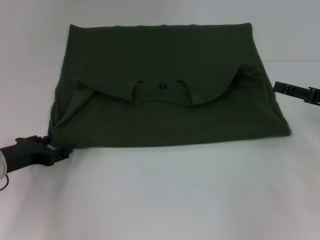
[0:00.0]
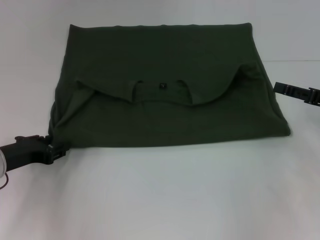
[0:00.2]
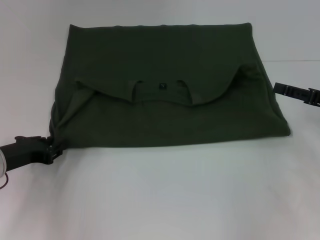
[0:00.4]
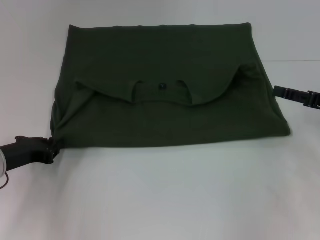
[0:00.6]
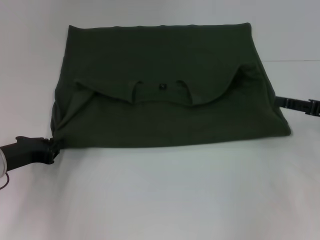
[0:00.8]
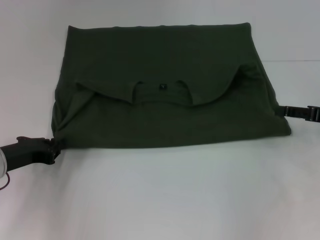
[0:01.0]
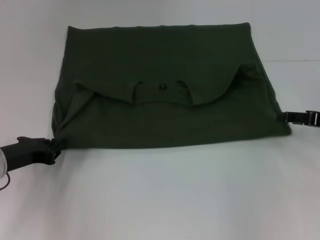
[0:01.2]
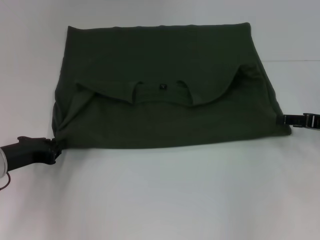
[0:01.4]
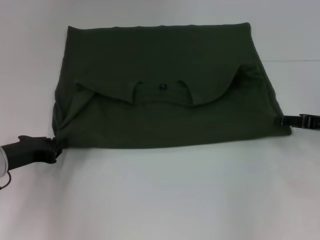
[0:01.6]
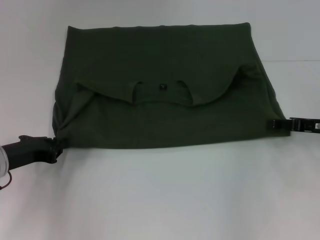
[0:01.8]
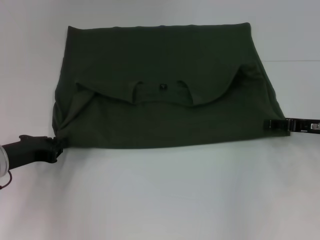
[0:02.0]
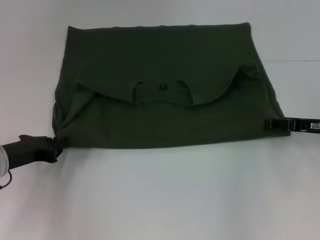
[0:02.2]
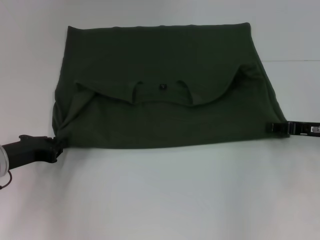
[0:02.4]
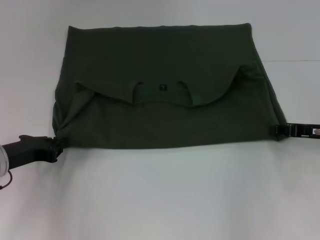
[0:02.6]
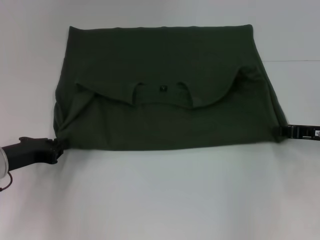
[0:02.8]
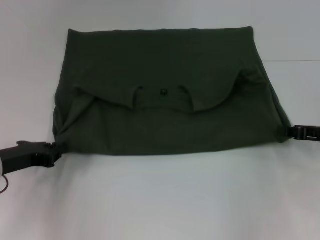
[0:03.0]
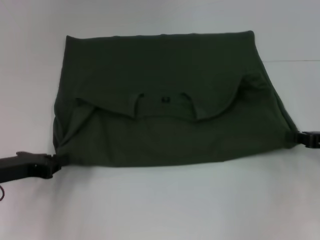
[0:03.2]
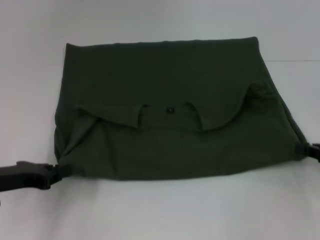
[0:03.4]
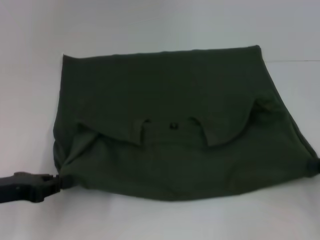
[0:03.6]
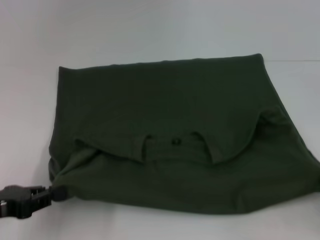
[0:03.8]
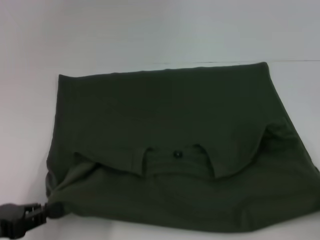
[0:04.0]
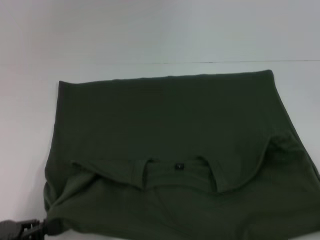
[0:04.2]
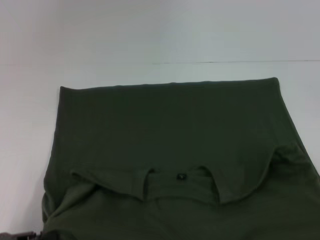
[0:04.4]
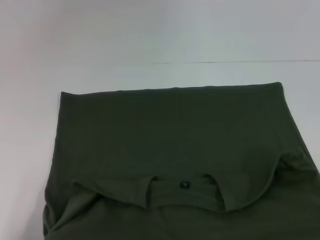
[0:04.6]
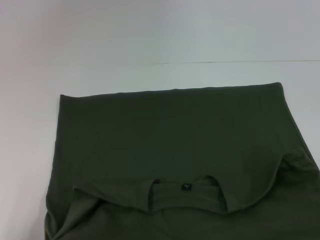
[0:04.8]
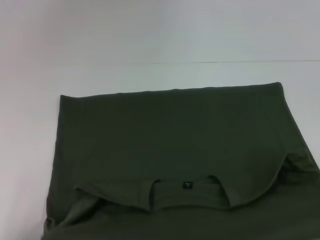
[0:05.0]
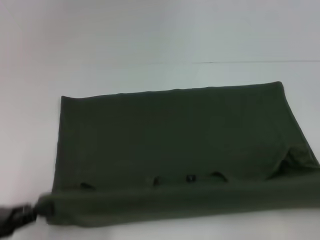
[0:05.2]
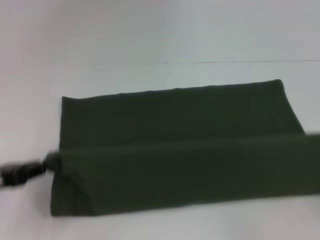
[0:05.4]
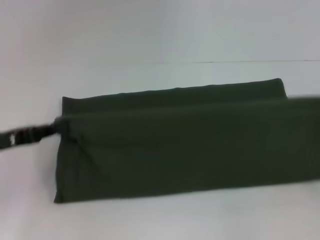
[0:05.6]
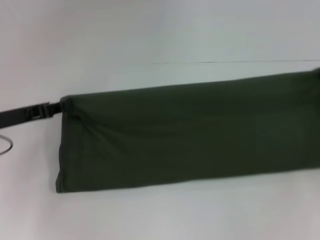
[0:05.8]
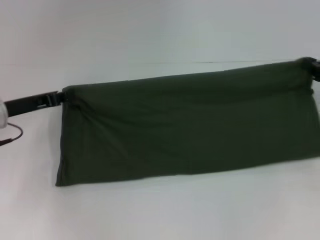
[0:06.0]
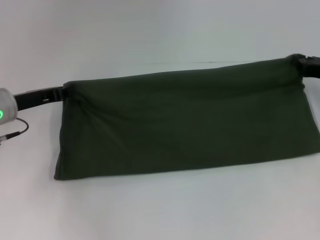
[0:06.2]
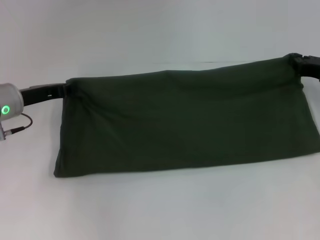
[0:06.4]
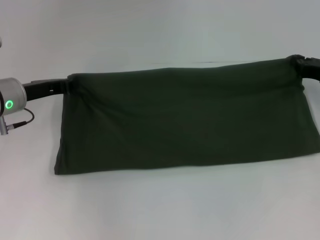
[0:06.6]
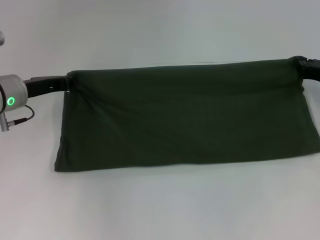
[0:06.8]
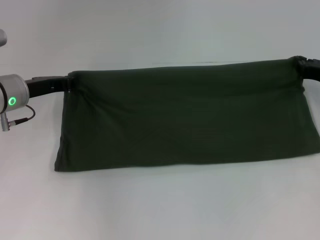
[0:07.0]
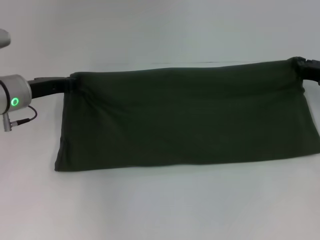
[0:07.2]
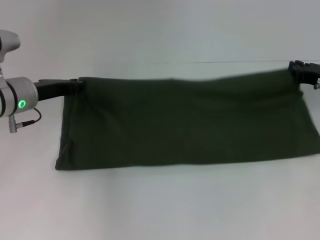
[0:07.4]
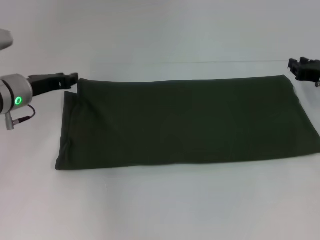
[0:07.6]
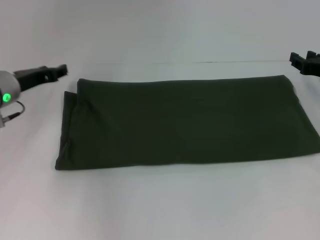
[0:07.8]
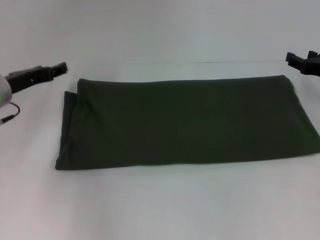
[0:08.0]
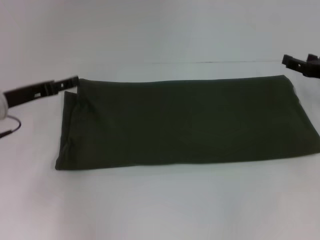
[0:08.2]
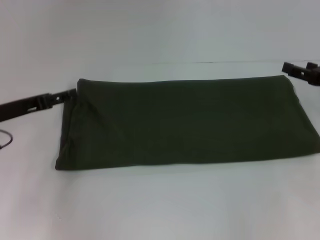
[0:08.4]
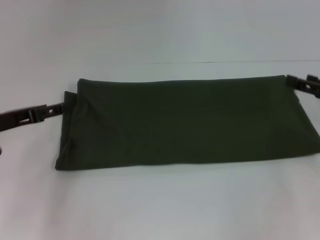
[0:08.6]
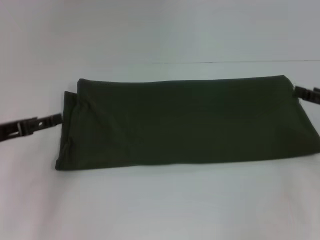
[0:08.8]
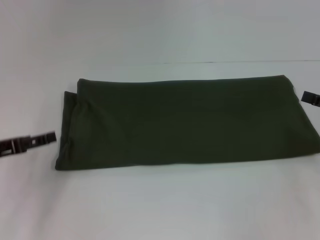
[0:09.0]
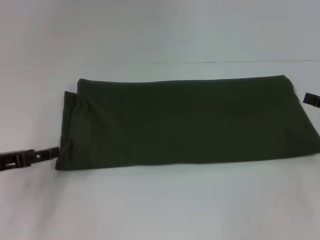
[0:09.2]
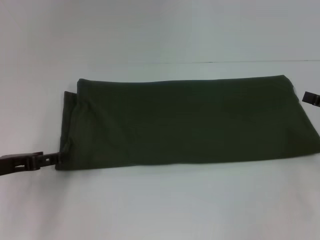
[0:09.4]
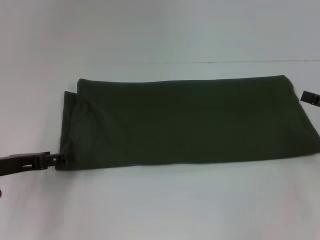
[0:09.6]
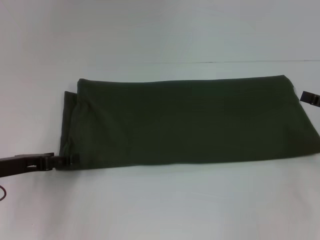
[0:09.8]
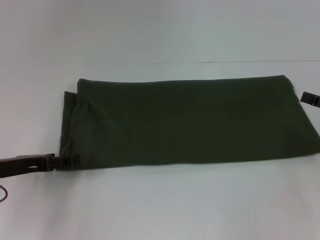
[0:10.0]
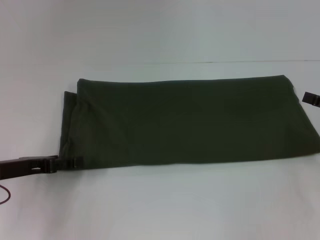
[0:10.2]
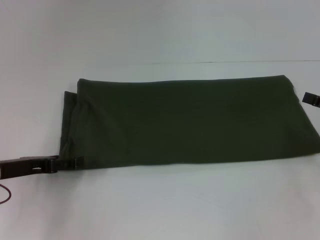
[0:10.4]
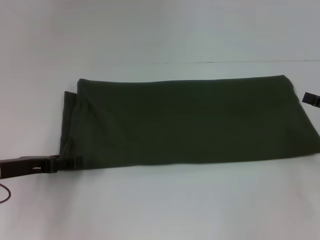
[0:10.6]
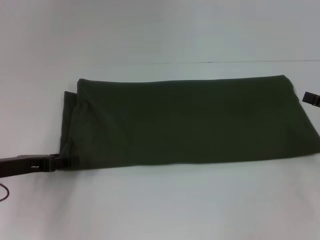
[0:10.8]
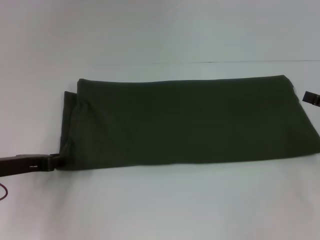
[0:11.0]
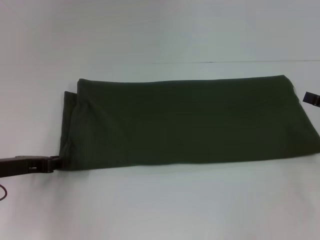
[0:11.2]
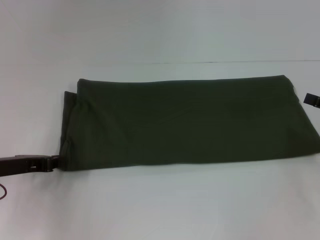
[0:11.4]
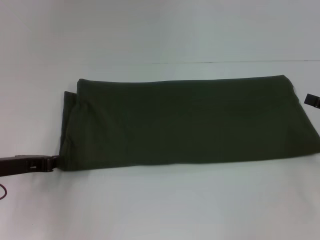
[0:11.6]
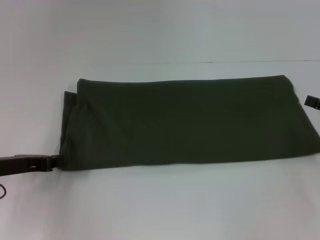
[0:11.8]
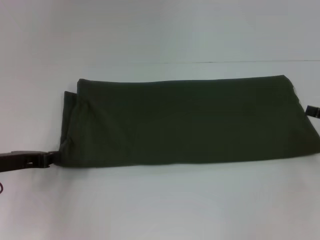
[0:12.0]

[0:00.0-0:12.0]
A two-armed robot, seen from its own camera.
Step, 0:00.0 to 0:04.4: Pull the clothes with your left hand.
Step, 0:00.0 to 0:04.4: Pull the clothes with your right hand.
Step, 0:04.6 to 0:07.6: Fold the clothes with your right hand.
0:00.0 to 0:01.6: The left gripper closes.
0:01.6 to 0:03.0: The right gripper closes its fingers.
0:03.0 to 0:04.4: The grippers both shift backward by some 15 cm.
0:04.4 to 0:06.0: Both grippers move forward, roughly 25 cm.
0:06.0 to 0:07.6: The left gripper ends up approximately 5 cm from where it was.
0:07.6 to 0:09.0: The right gripper is displaced backward and to the right by about 10 cm, and opens up; the left gripper travels backward and to the left by about 15 cm, and opens up.
0:09.0 to 0:10.4: The grippers move only a little.
0:10.4 to 0:12.0: The left gripper closes its fingers.

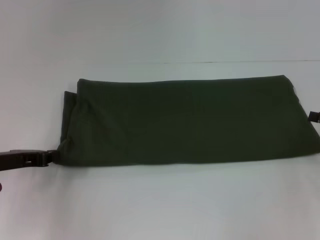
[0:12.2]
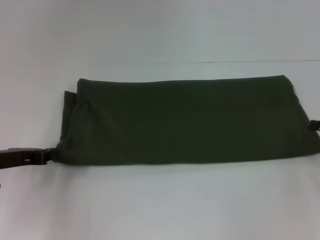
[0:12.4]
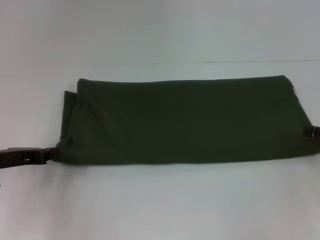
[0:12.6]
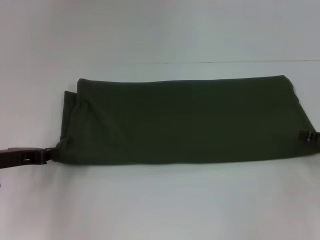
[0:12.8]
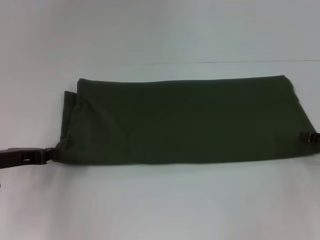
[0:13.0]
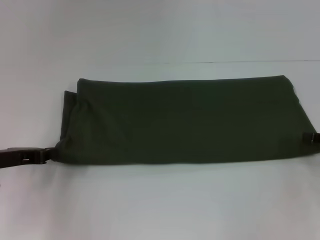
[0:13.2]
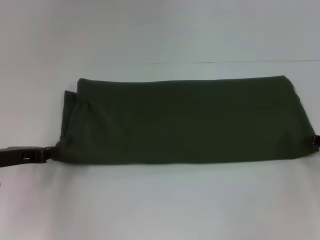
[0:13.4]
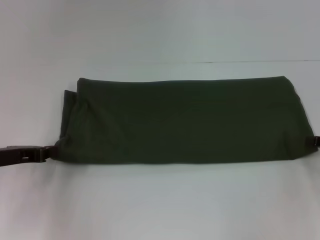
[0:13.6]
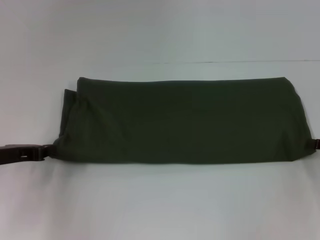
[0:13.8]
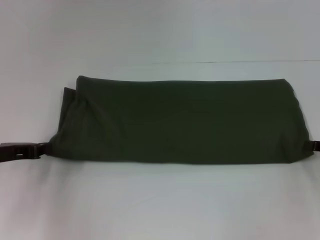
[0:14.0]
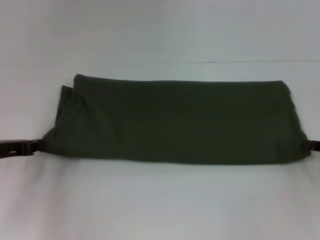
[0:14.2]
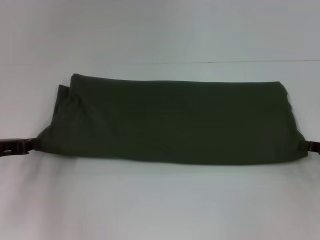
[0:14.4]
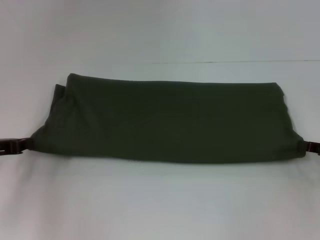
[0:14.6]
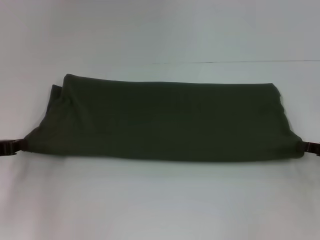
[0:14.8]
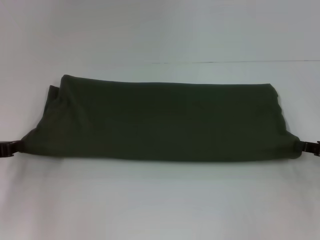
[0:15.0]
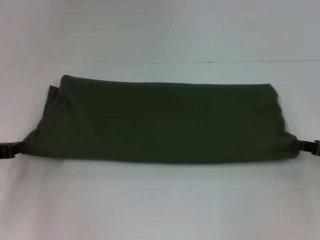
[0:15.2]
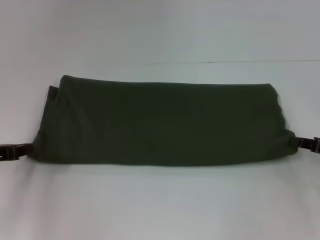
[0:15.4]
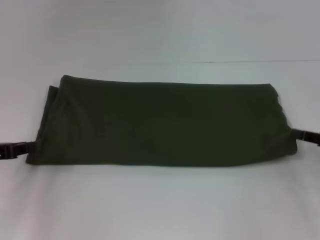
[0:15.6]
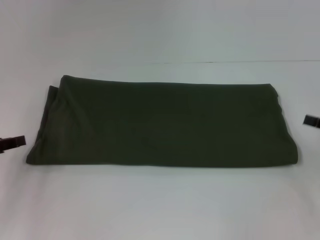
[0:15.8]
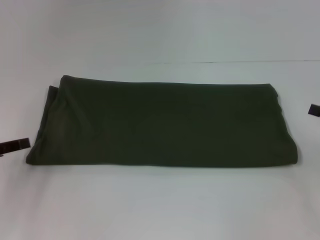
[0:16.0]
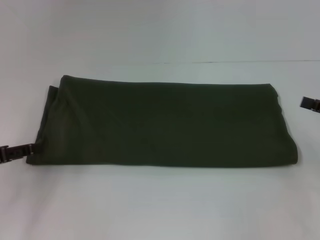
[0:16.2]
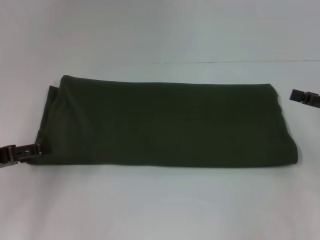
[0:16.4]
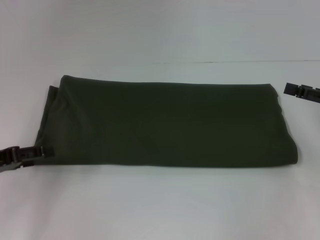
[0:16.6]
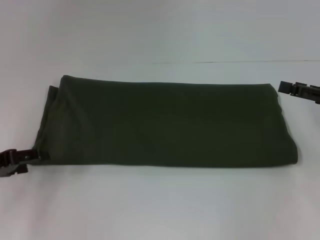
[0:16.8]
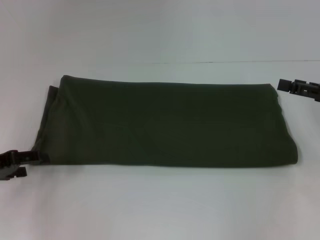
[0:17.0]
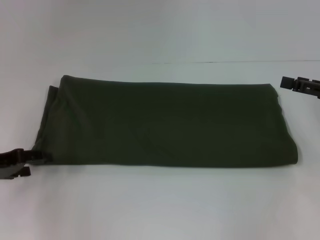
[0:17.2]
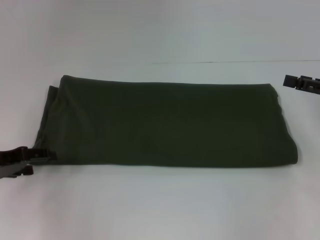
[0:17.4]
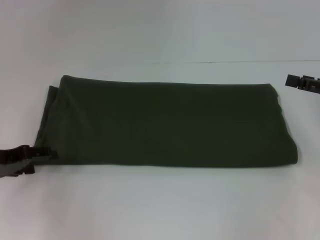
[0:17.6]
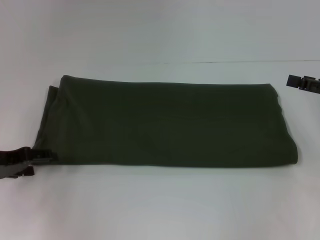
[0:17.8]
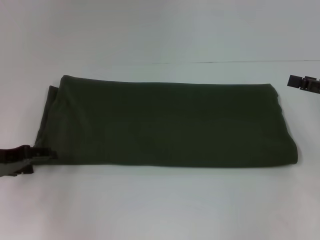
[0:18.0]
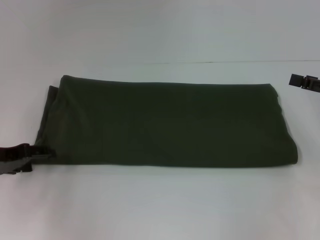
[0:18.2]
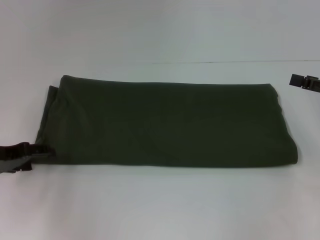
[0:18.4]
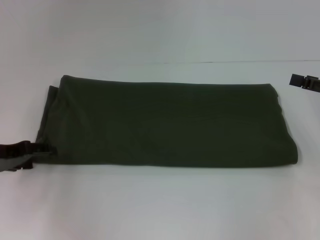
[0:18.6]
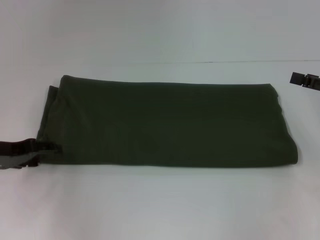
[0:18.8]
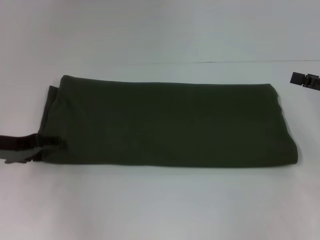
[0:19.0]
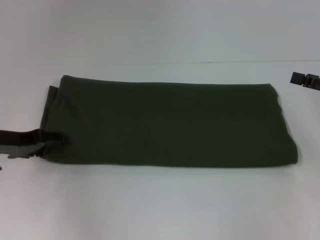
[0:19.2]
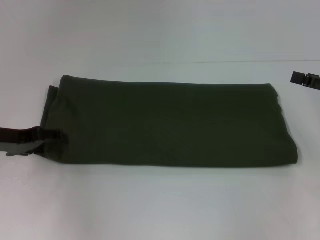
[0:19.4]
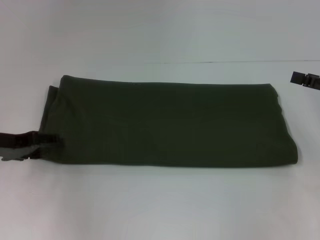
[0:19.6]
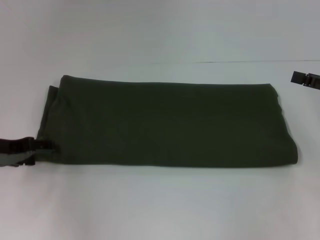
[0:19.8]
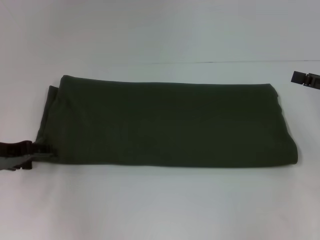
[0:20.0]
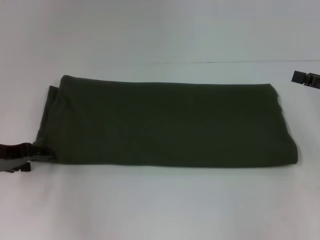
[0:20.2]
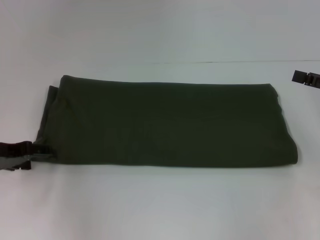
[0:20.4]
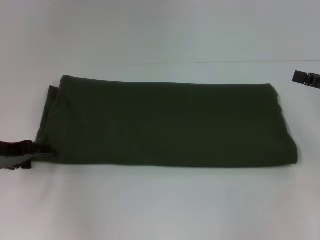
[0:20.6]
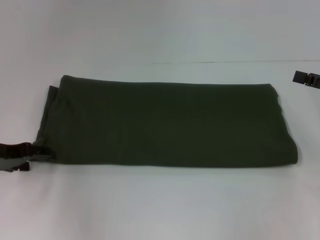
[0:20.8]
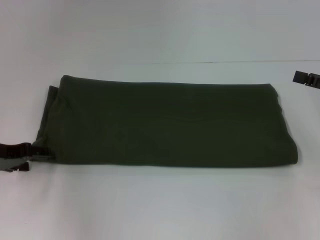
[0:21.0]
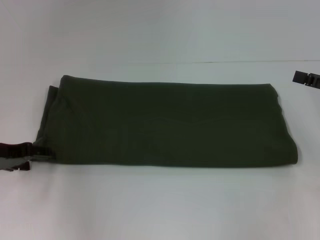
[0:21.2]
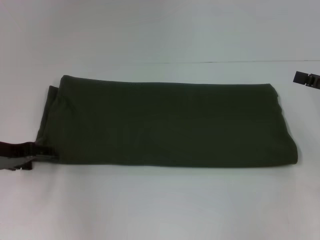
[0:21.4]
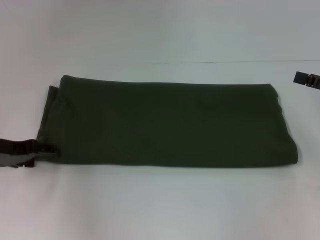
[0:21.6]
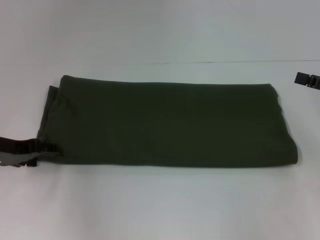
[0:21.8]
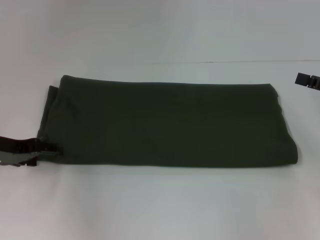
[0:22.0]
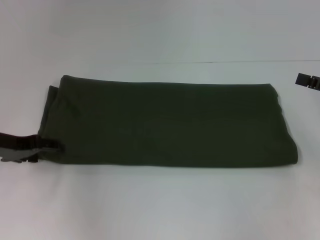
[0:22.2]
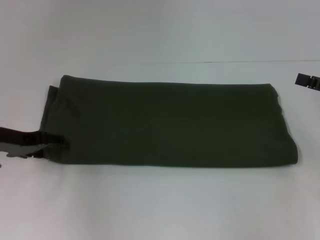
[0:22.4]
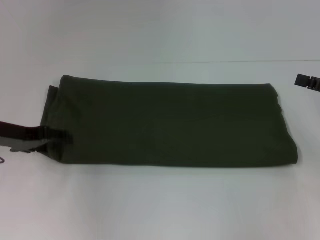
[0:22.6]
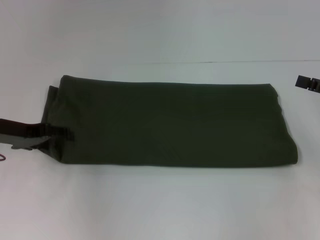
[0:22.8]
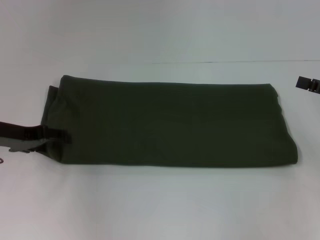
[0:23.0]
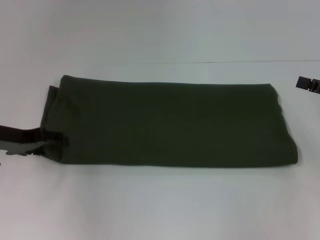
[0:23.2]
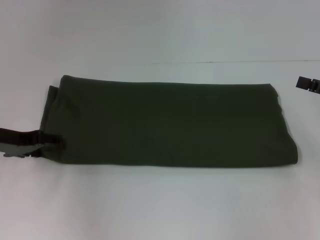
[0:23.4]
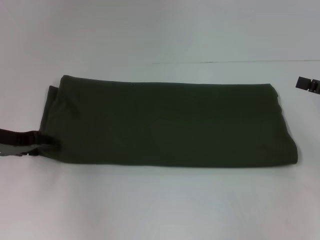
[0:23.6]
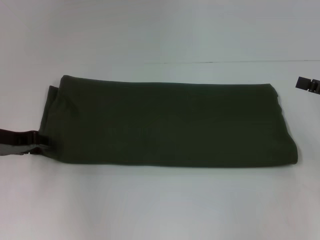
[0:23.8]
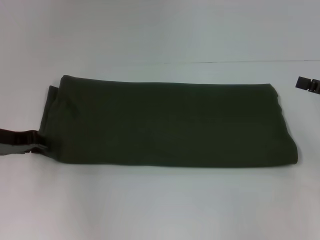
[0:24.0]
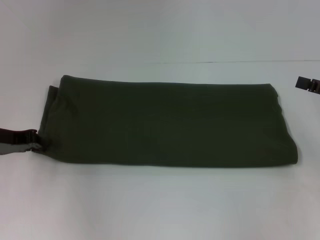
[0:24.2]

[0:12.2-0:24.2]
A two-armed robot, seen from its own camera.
0:12.2 to 0:13.8: The right gripper closes its fingers.
0:13.8 to 0:15.2: There are only small adjustments of the grippers.
0:15.2 to 0:16.6: The left gripper opens its fingers. The right gripper moves upward, roughly 5 cm, and opens.
0:16.6 to 0:18.2: The grippers make only small movements.
0:18.2 to 0:19.8: The grippers make only small movements.
0:19.8 to 0:21.2: Neither gripper changes place.
0:21.2 to 0:22.6: The grippers move only a little.
0:22.6 to 0:24.2: The left gripper closes its fingers.
